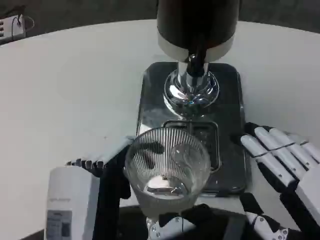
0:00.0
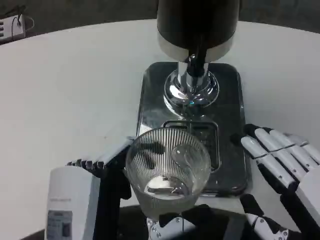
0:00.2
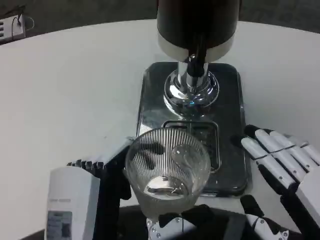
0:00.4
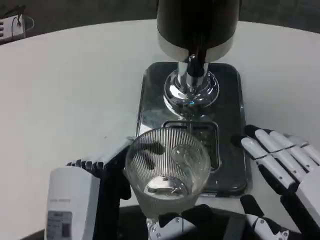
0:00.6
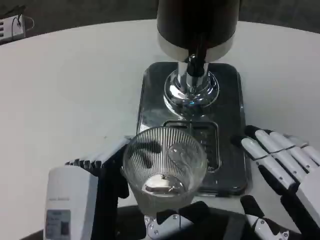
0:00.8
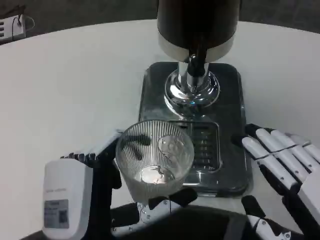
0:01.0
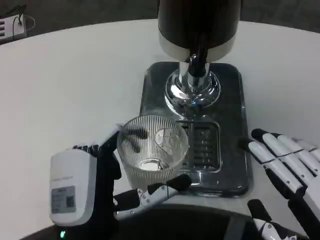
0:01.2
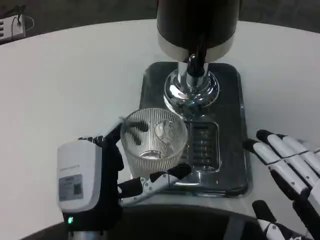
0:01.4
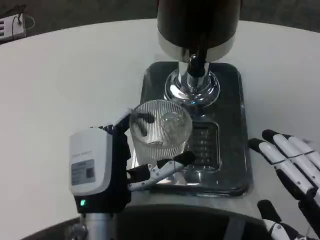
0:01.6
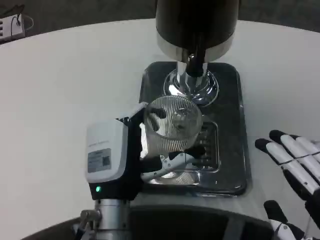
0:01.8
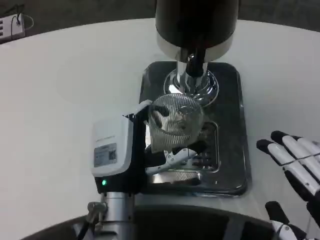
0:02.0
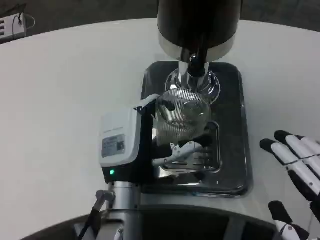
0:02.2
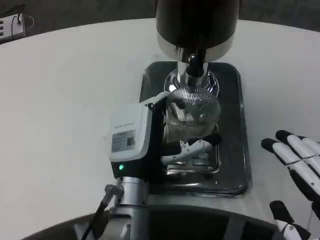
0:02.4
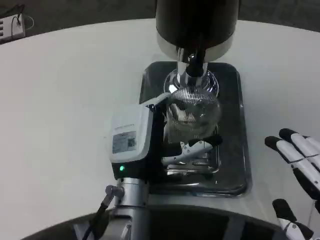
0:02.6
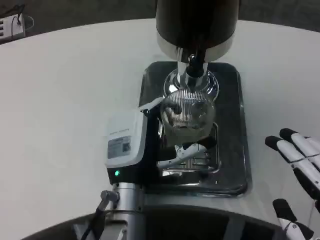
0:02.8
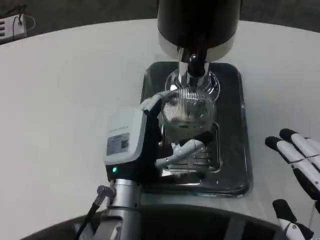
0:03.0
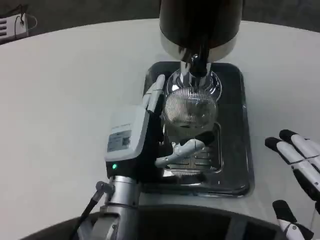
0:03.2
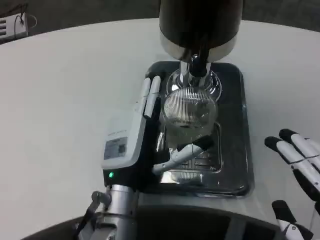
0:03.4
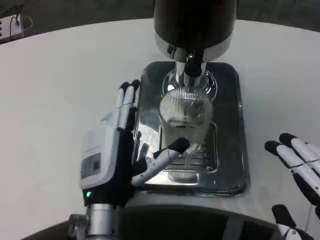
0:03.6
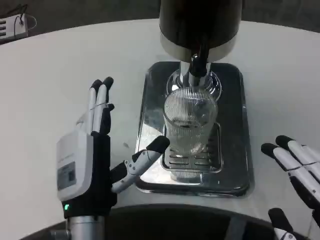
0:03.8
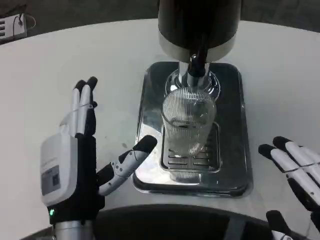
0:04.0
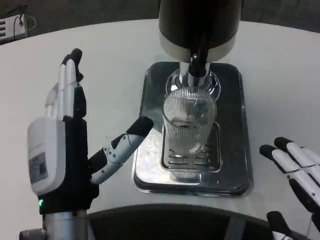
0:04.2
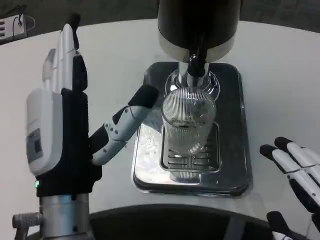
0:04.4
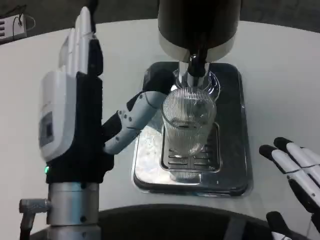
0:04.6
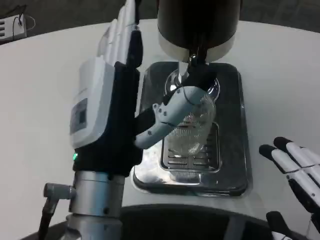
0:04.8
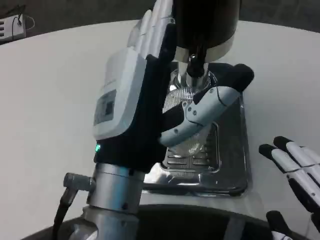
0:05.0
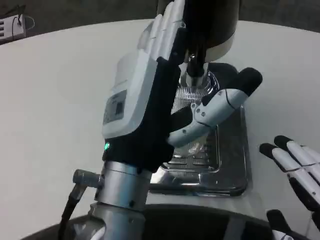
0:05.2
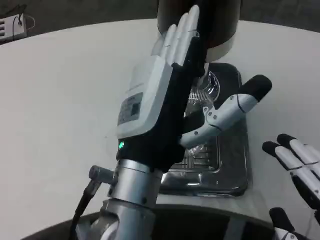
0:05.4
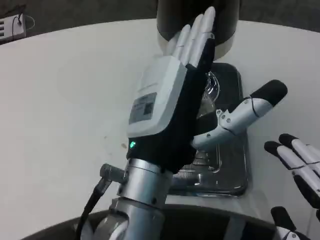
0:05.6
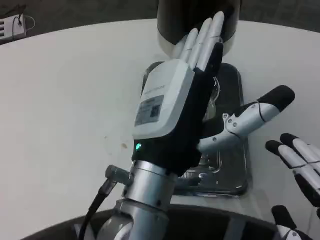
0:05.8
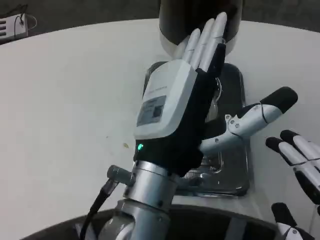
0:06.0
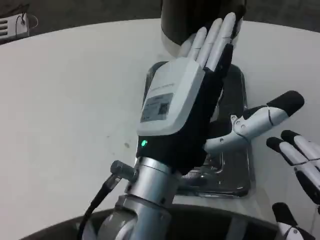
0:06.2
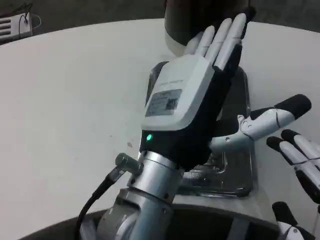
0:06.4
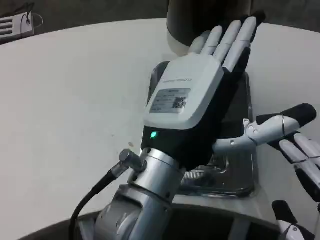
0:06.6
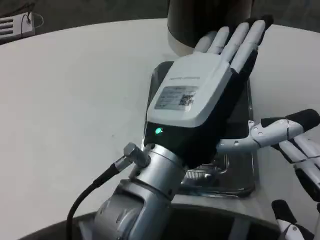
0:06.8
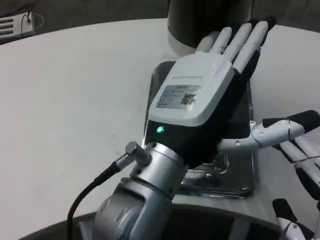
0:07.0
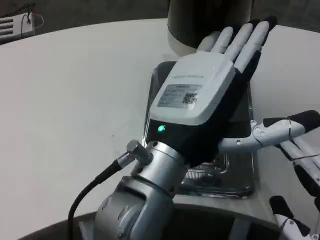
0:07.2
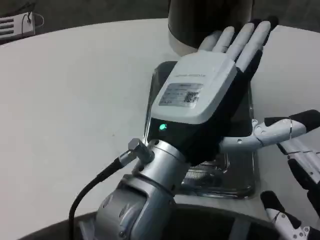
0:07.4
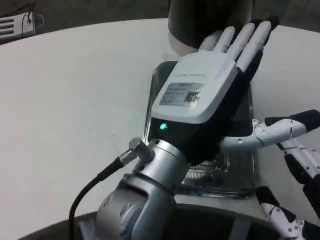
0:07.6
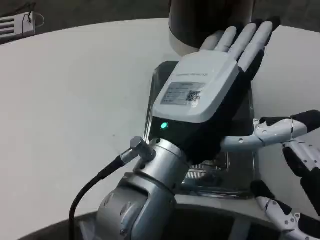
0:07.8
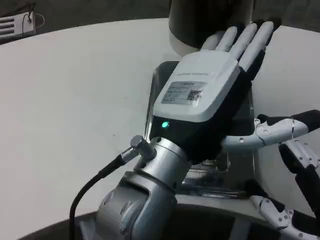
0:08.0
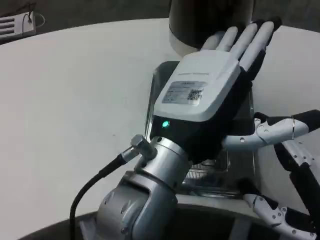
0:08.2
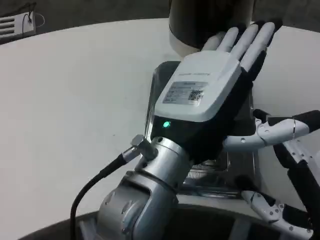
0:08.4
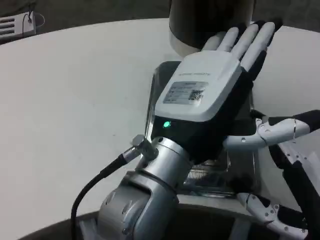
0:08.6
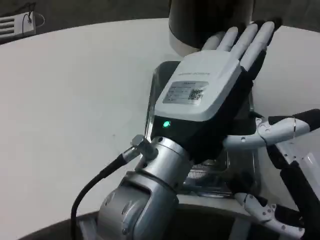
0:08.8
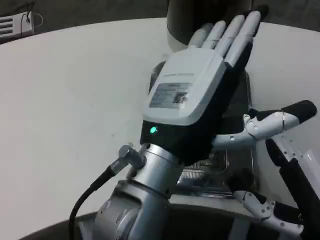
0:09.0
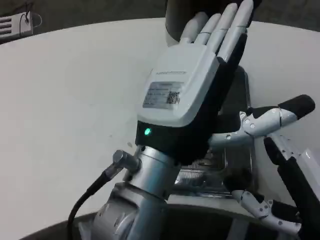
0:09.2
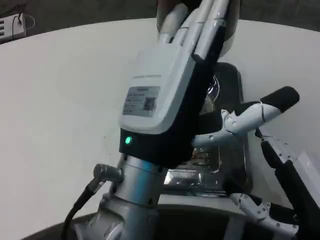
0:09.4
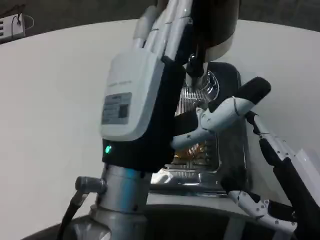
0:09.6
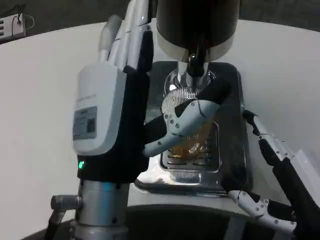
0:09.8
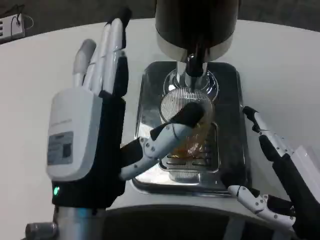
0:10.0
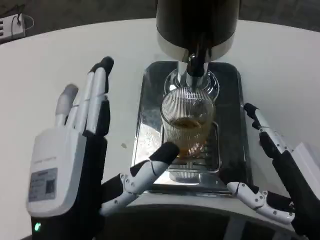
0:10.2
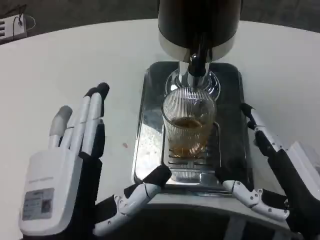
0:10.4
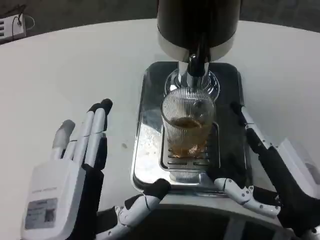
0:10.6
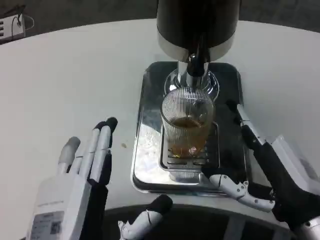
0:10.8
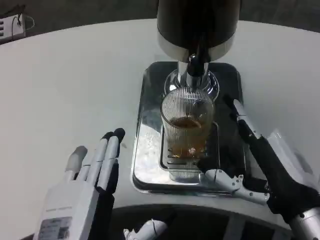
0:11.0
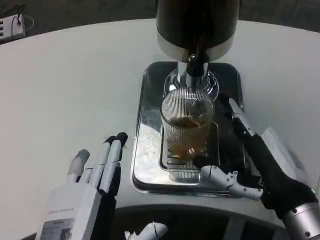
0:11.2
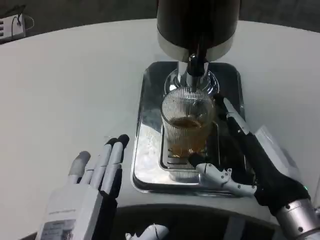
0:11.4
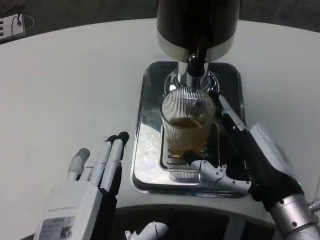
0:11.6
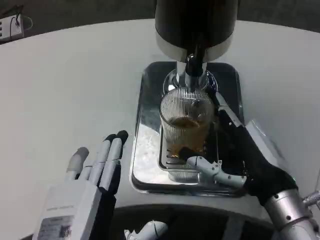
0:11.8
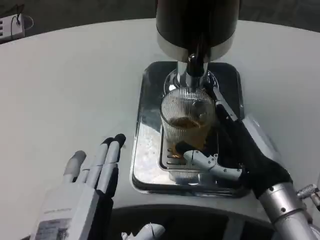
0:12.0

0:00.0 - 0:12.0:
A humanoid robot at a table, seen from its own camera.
Task of the whole recording: Grasp the cup under the faucet to collect the drink, then remove the cup.
0:00.0 - 0:01.6: The left hand heads forward, covering about 10 cm.
0:01.6 - 0:03.0: The left hand heads forward, covering approximately 5 cm.
0:03.0 - 0:04.4: The left hand is displaced backward and upward by approximately 15 cm.
0:04.4 - 0:06.0: The left hand is displaced to the right by approximately 5 cm.
0:09.0 - 0:10.4: The left hand is displaced downward, to the left and backward by roughly 15 cm.
0:10.4 - 0:12.0: The right hand moves forward, approximately 5 cm.

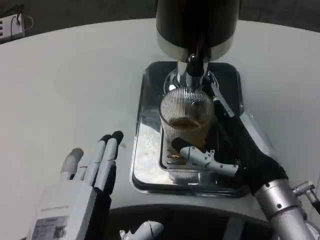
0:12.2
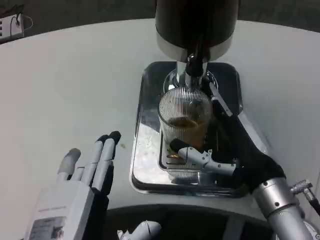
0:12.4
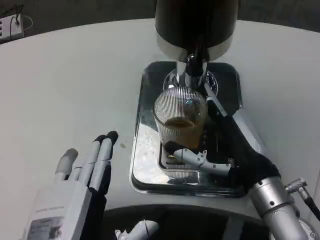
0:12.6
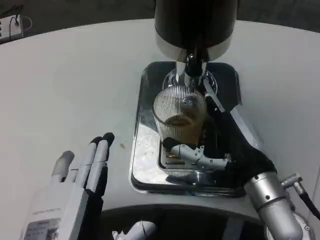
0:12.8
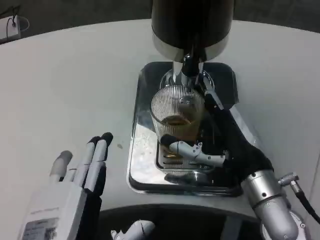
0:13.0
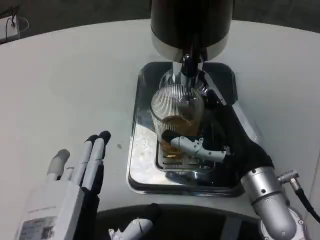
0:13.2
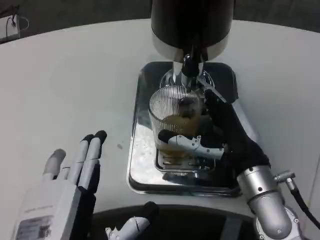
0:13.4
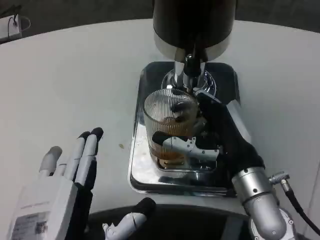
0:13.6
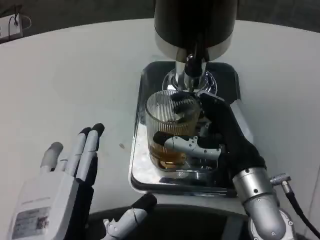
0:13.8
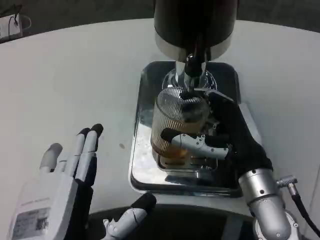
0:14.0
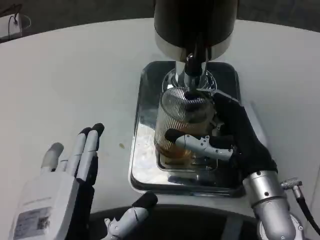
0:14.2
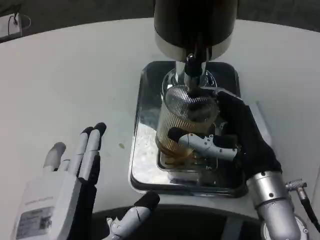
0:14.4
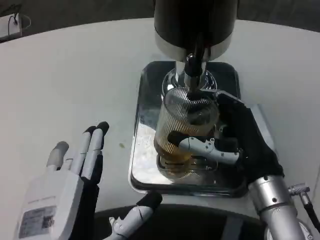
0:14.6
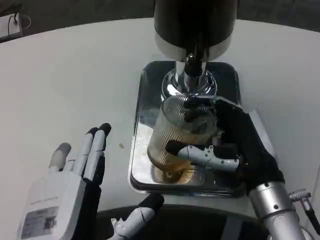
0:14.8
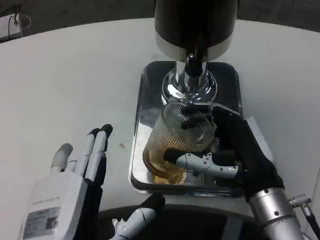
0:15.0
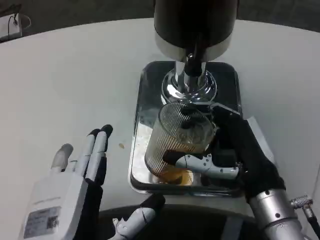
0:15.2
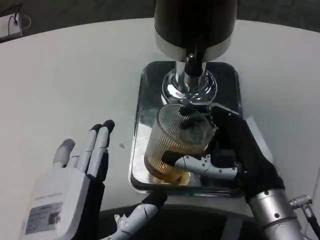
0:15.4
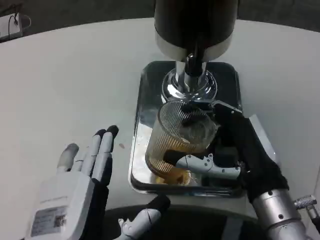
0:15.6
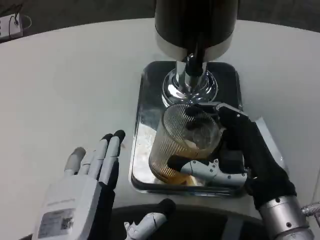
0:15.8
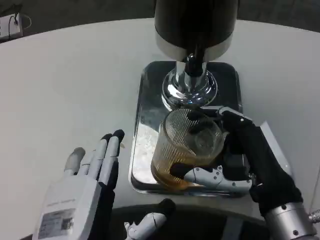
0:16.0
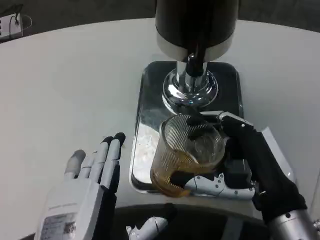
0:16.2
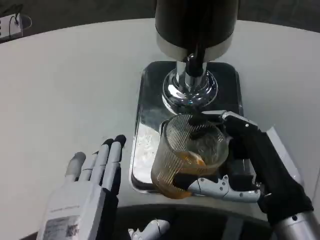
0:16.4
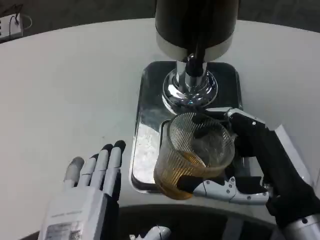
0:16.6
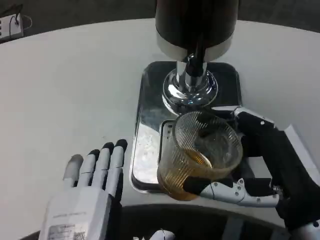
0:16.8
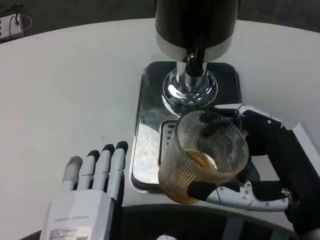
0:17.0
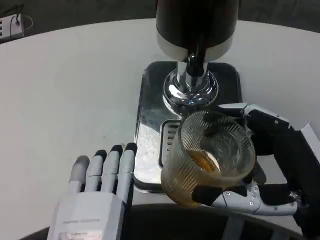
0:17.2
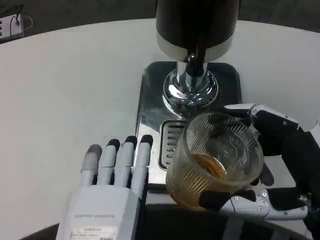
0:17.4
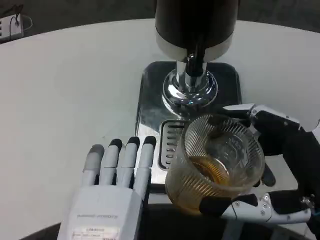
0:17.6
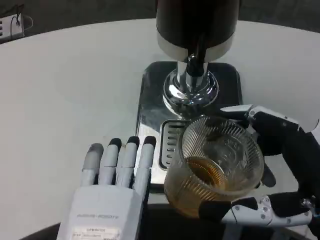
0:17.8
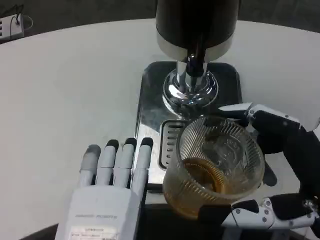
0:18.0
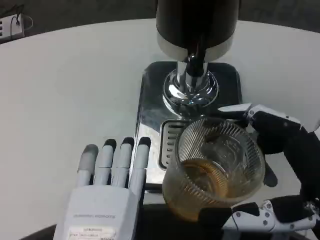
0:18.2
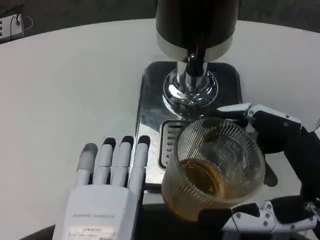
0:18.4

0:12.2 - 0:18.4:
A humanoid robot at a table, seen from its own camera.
Task of the whole recording: Grasp the cup under the faucet to collect the drink, then remove the cup.
0:15.4 - 0:16.8: The right hand travels backward by some 5 cm.

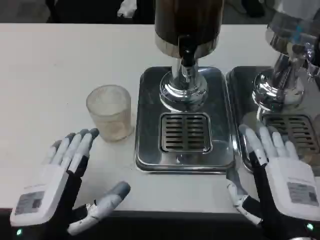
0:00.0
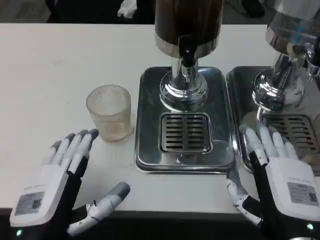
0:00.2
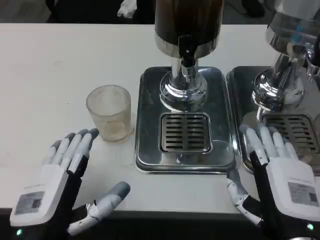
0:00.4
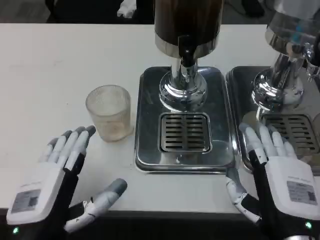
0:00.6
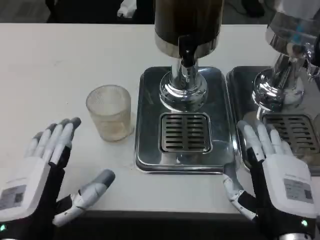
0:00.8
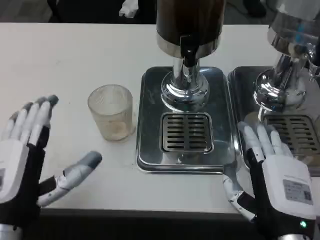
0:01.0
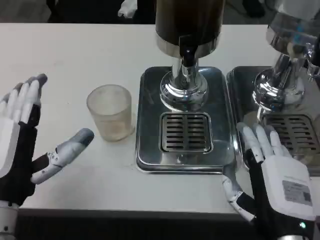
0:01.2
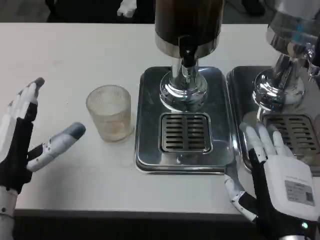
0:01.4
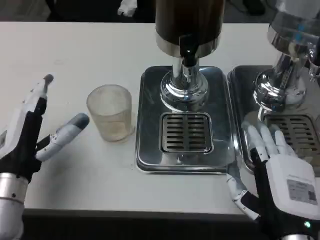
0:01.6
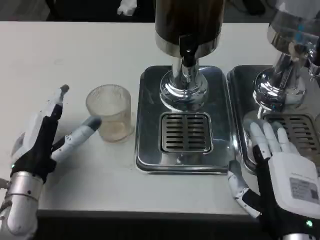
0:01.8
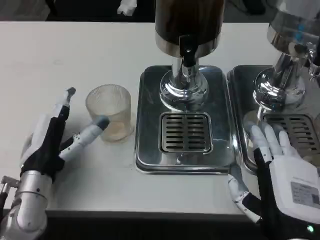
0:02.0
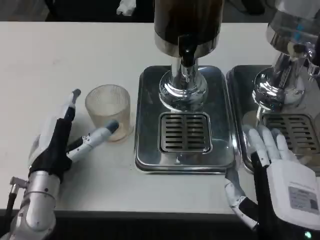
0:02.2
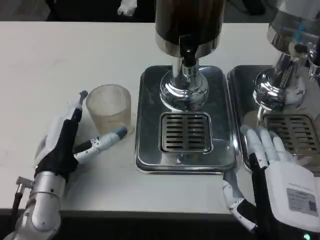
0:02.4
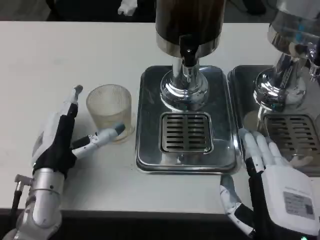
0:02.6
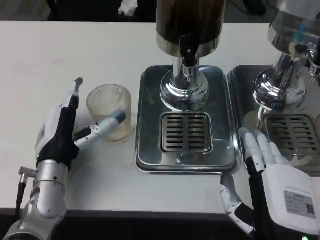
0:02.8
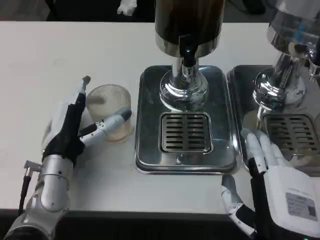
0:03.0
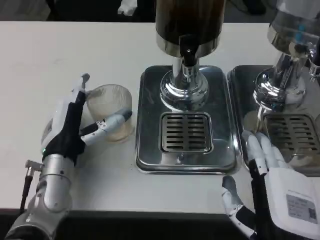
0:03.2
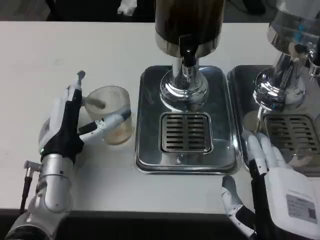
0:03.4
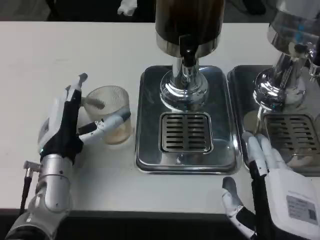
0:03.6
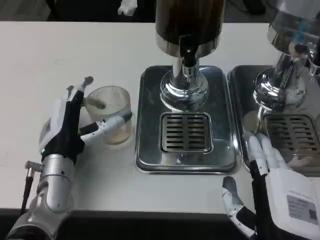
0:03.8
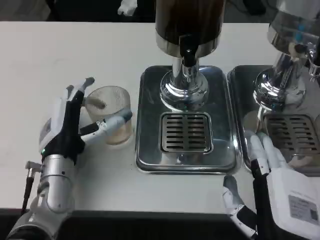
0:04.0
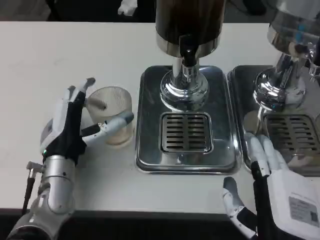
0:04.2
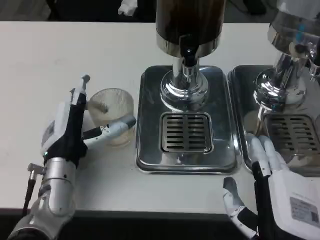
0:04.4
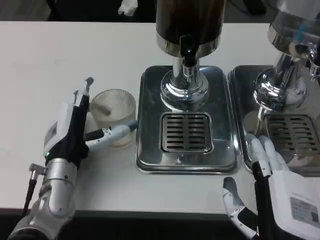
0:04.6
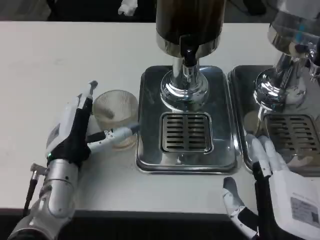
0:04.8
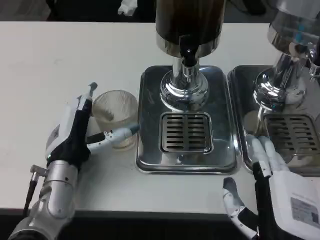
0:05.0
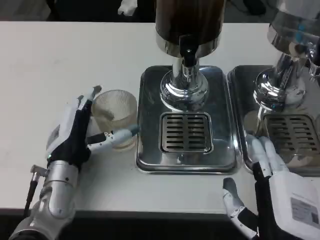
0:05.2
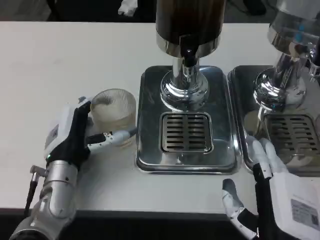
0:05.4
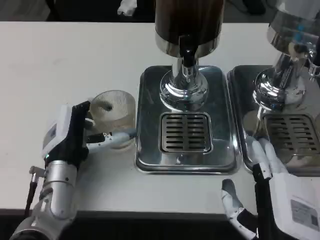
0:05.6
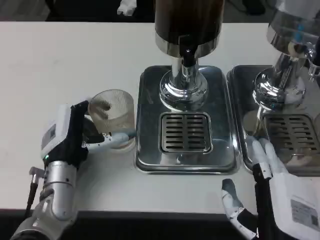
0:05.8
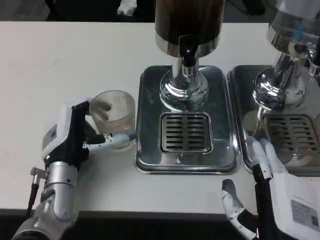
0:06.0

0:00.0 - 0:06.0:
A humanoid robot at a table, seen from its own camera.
Task of the whole recording: Grasp the cup under the faucet to collect the drink, then remove the cup.
0:00.0 - 0:01.6: The left hand travels forward by roughly 10 cm.
0:01.6 - 0:03.0: The left hand is displaced to the right by approximately 5 cm.
0:03.0 - 0:04.4: The hands stay close to where they were, moving slightly.
0:04.4 - 0:06.0: The two hands keep their place.
